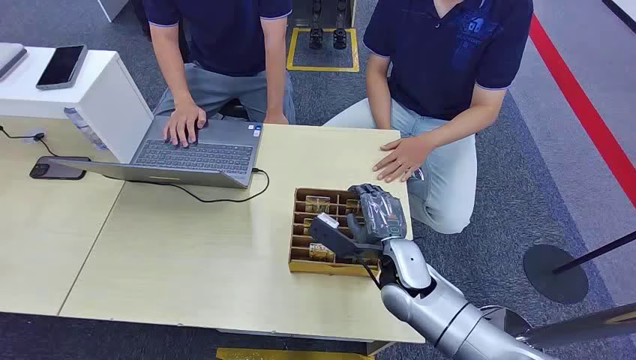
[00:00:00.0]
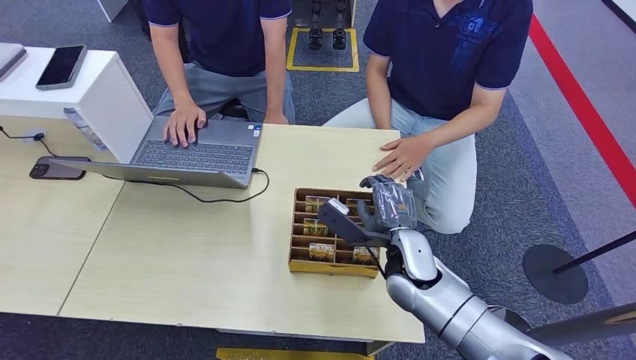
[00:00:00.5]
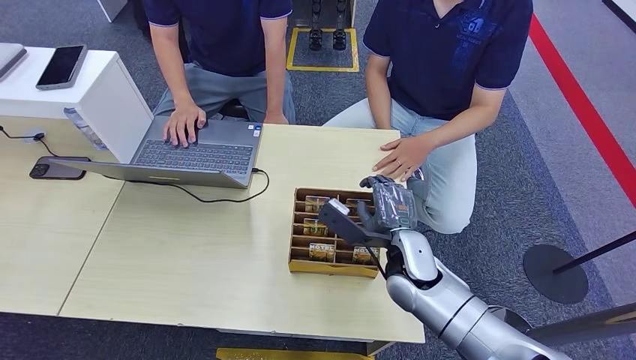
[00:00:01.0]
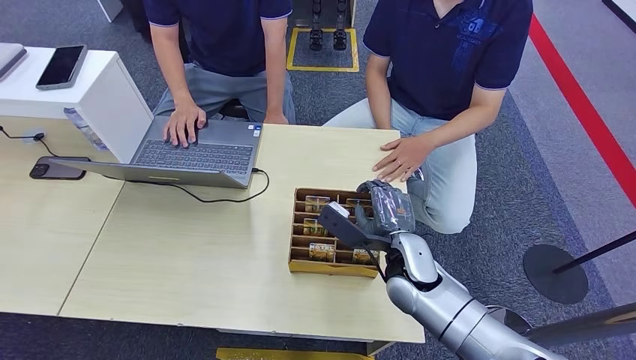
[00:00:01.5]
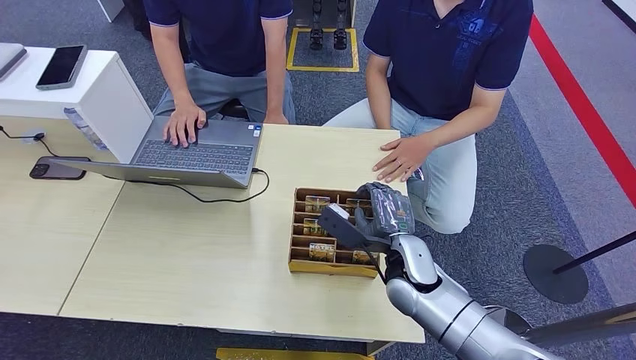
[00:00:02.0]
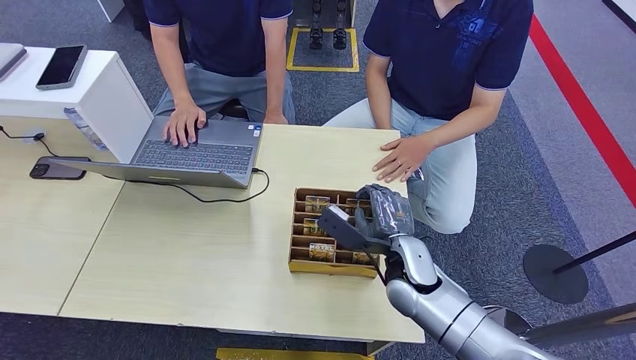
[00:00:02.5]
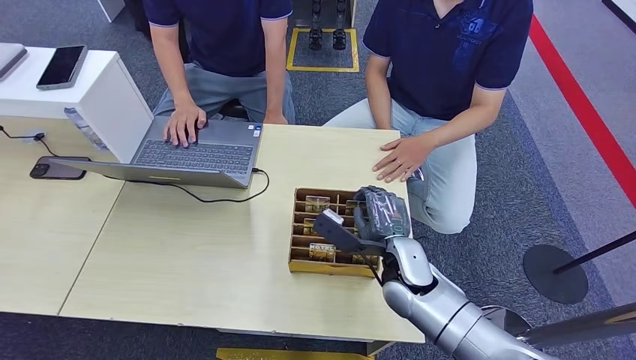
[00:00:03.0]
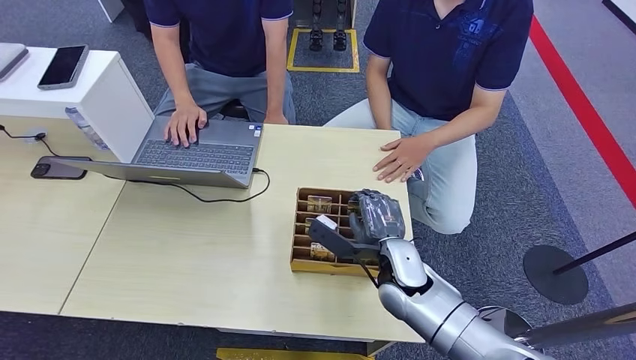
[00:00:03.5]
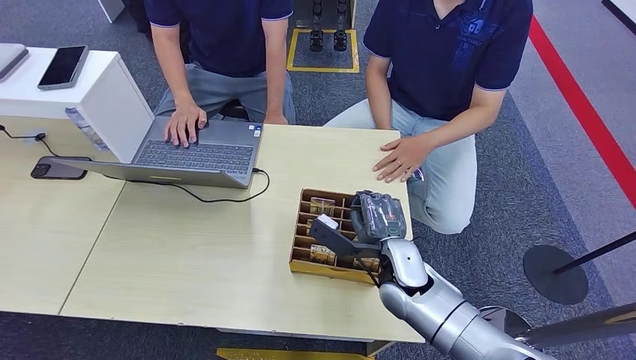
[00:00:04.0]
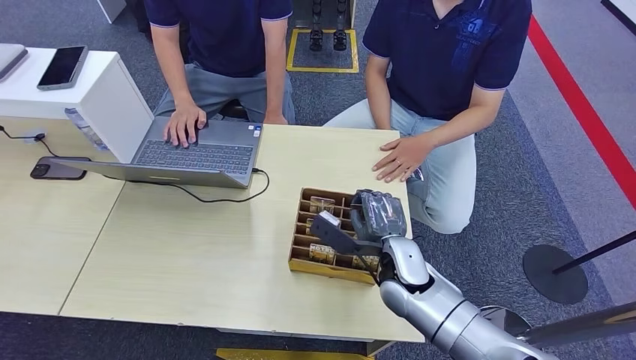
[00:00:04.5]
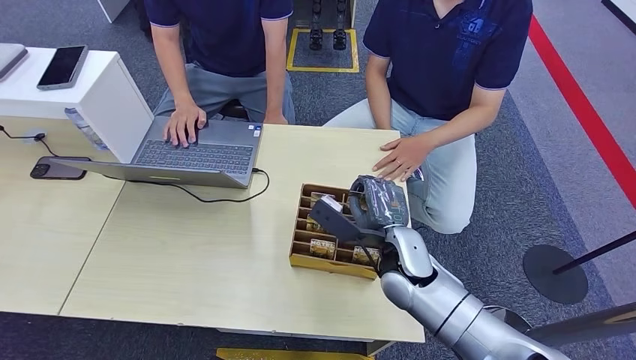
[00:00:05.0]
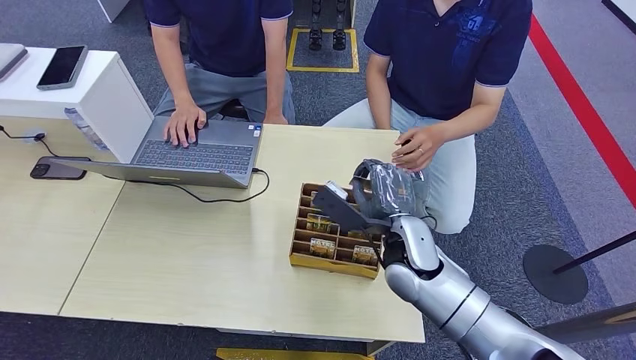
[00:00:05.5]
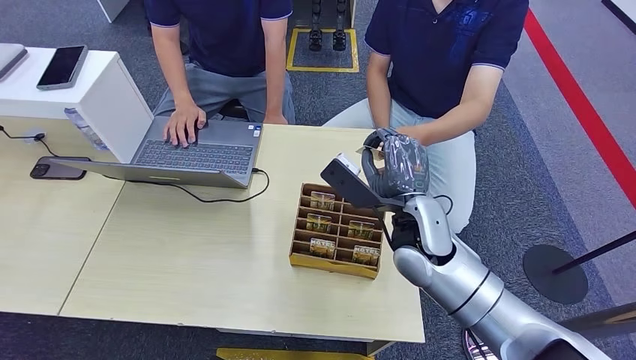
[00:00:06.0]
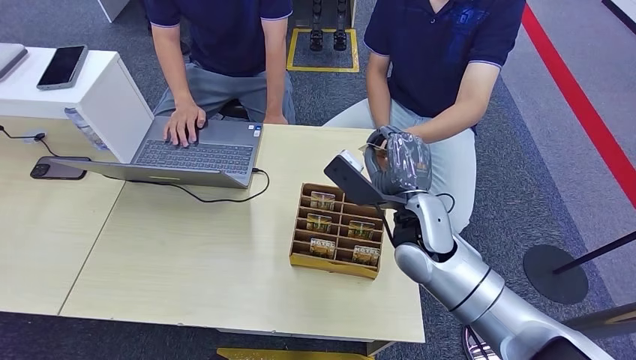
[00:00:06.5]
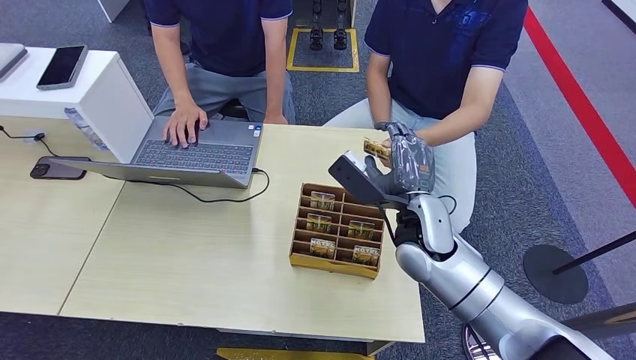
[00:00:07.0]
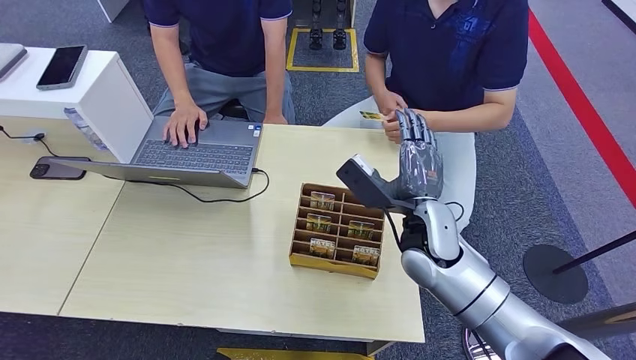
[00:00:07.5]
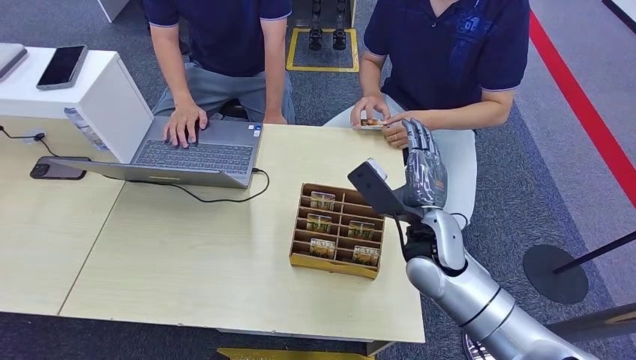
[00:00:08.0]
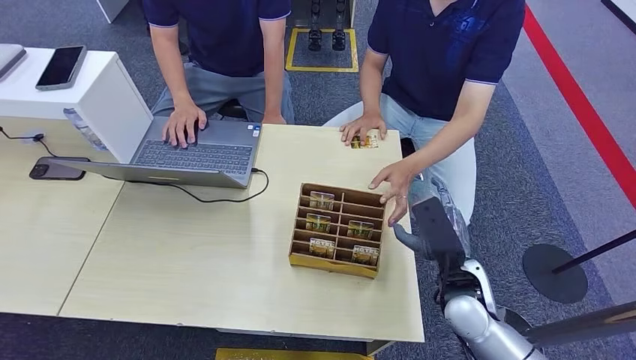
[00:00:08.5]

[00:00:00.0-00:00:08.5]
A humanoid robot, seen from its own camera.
Step, 00:00:00.0 to 00:00:05.5: Pick up the key card from the card box.
Step, 00:00:06.0 to 00:00:08.5: Hand the key card to the target.
00:00:02.0 to 00:00:04.0: There are only small adjustments of the hands.
00:00:04.0 to 00:00:06.5: The right hand goes approximately 10 cm upward.
00:00:06.5 to 00:00:08.5: The right hand is displaced to the right, downward and backward by roughly 15 cm.
